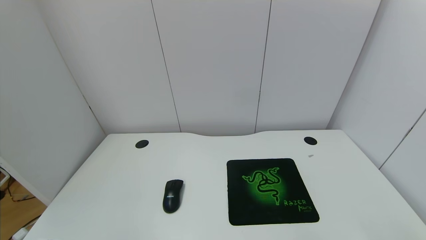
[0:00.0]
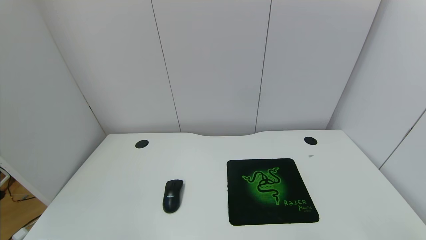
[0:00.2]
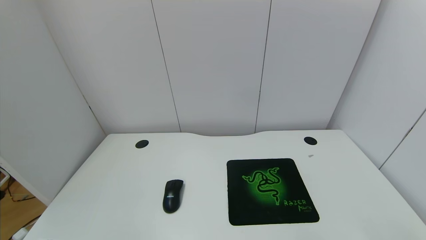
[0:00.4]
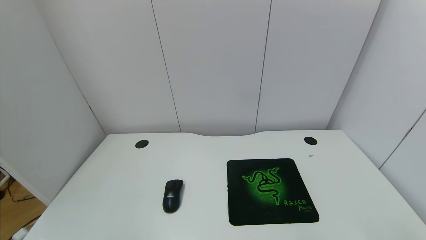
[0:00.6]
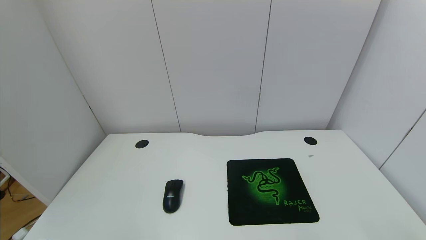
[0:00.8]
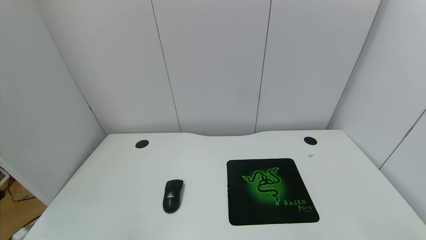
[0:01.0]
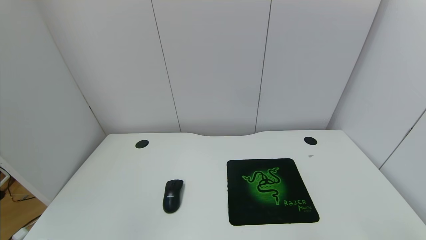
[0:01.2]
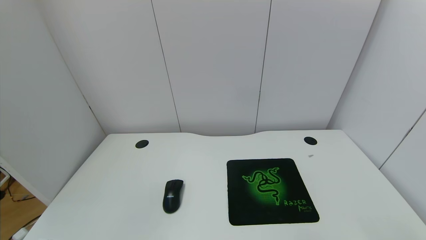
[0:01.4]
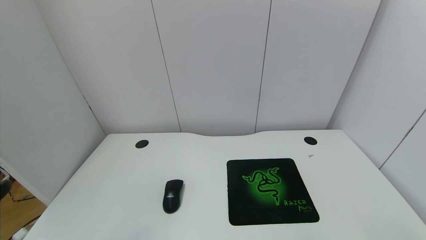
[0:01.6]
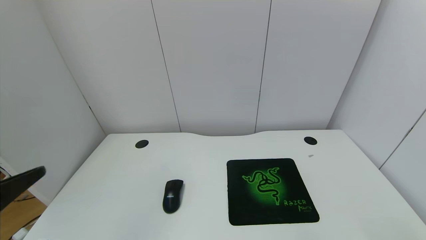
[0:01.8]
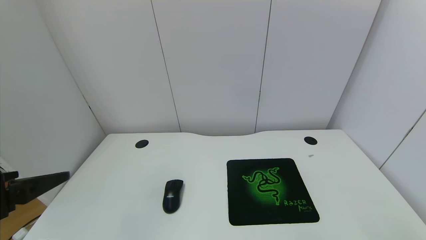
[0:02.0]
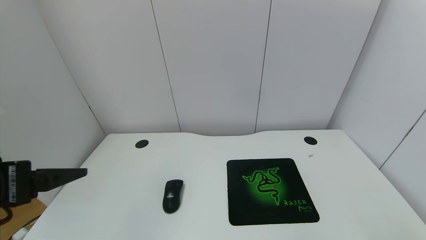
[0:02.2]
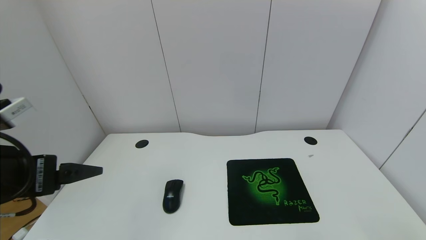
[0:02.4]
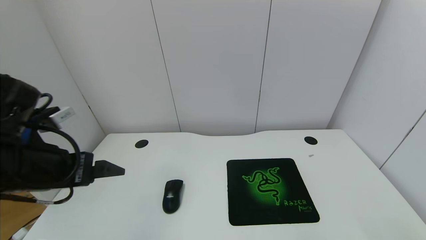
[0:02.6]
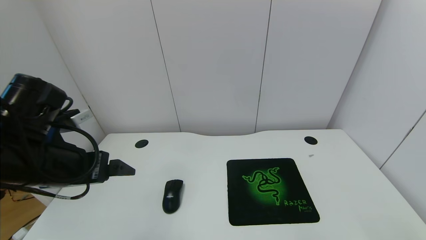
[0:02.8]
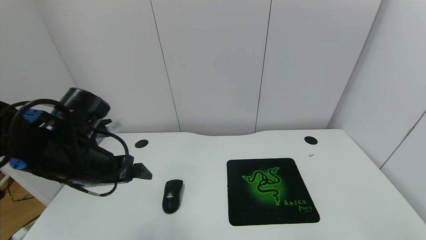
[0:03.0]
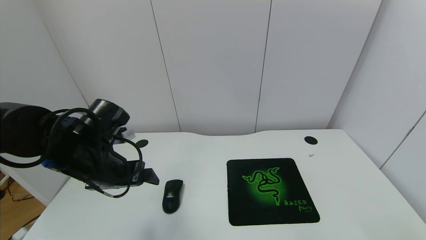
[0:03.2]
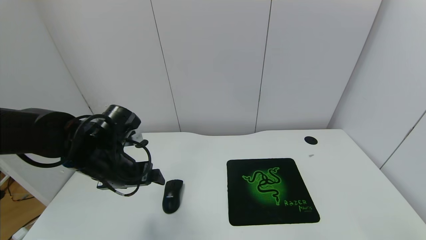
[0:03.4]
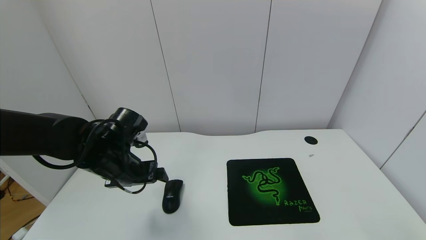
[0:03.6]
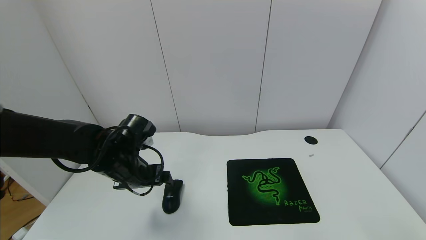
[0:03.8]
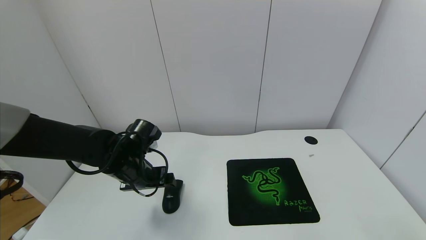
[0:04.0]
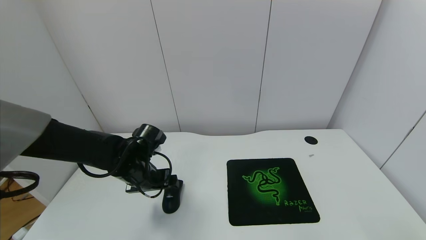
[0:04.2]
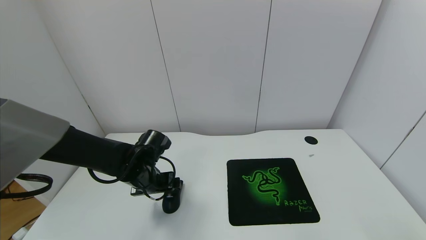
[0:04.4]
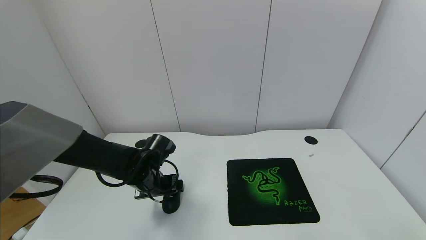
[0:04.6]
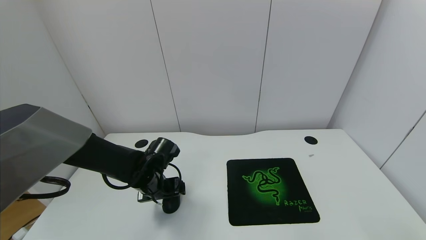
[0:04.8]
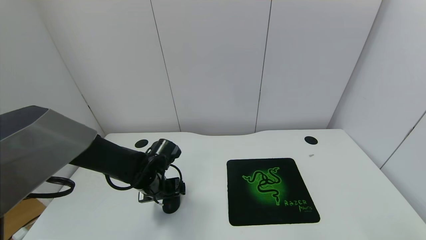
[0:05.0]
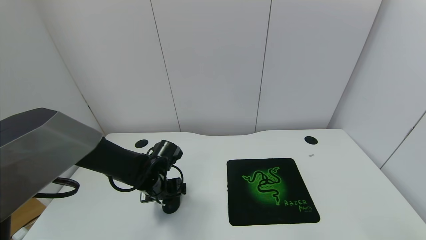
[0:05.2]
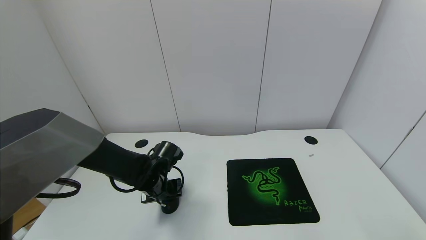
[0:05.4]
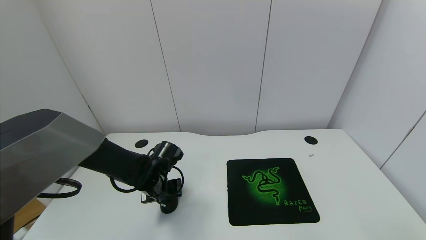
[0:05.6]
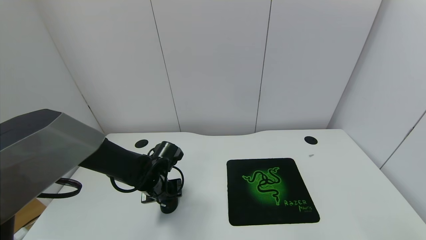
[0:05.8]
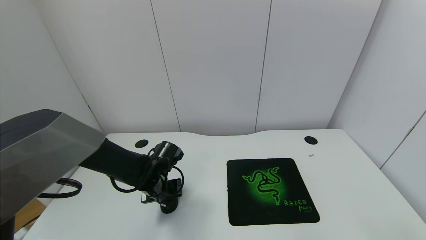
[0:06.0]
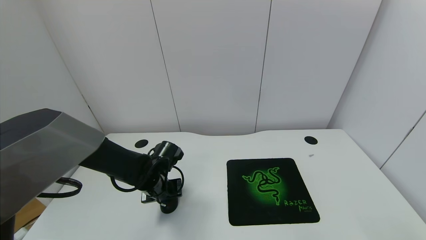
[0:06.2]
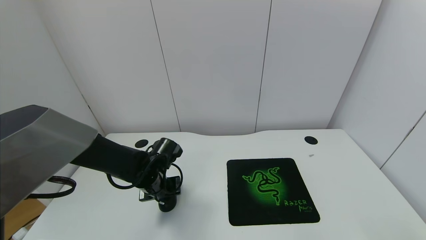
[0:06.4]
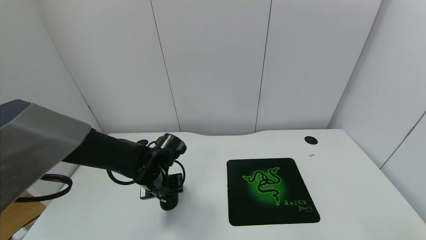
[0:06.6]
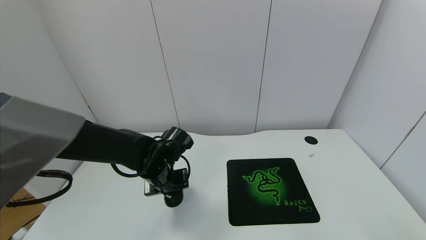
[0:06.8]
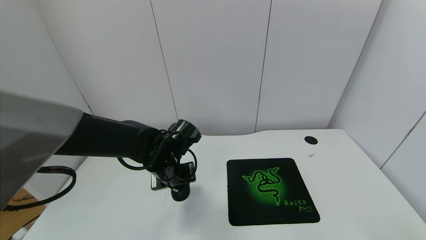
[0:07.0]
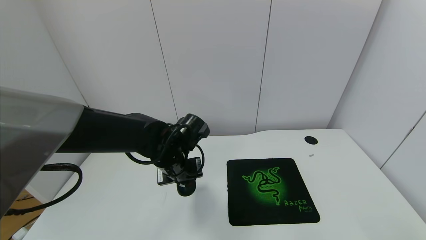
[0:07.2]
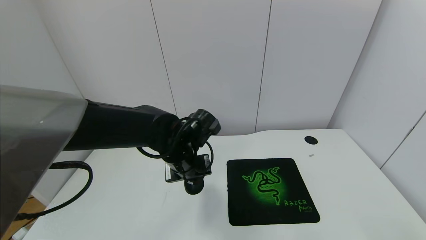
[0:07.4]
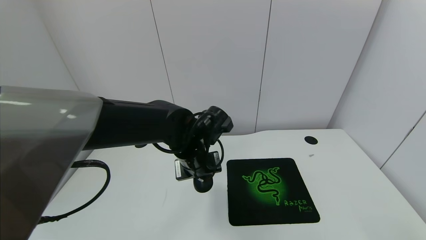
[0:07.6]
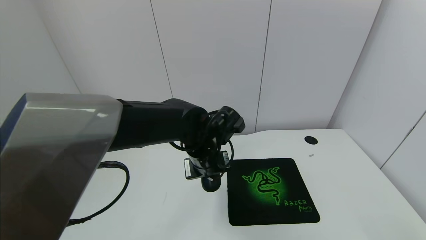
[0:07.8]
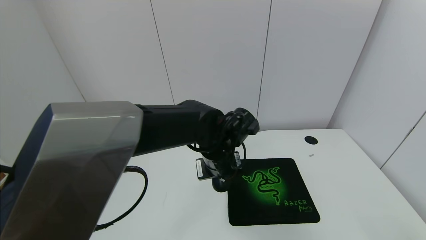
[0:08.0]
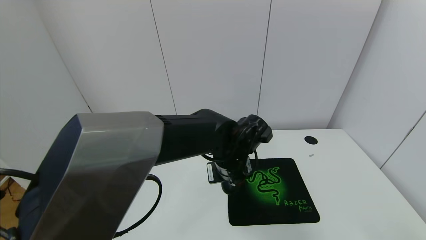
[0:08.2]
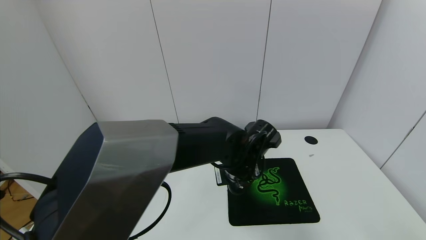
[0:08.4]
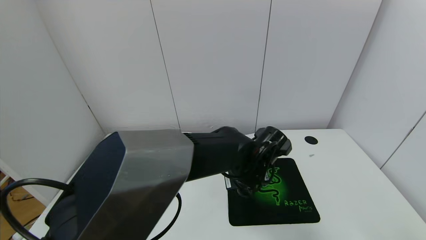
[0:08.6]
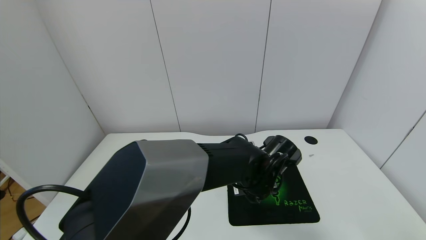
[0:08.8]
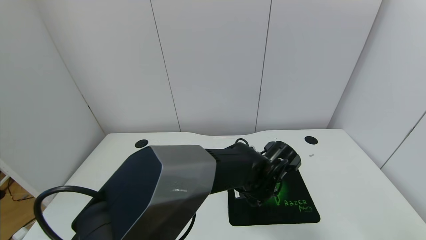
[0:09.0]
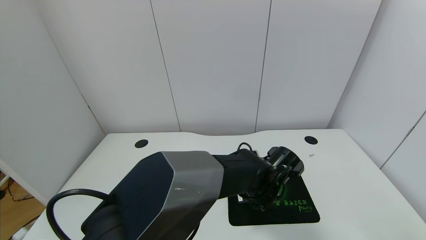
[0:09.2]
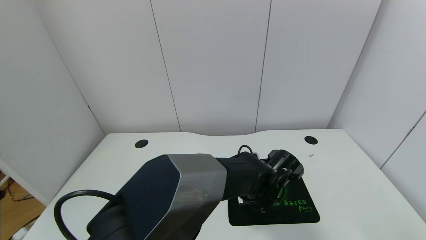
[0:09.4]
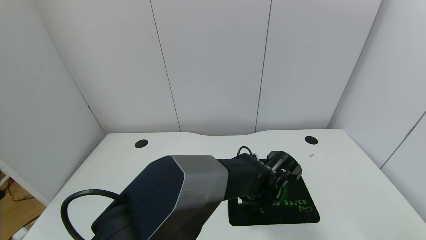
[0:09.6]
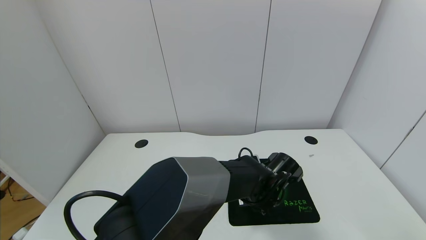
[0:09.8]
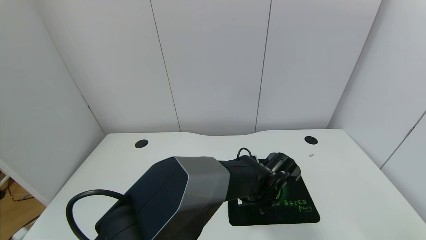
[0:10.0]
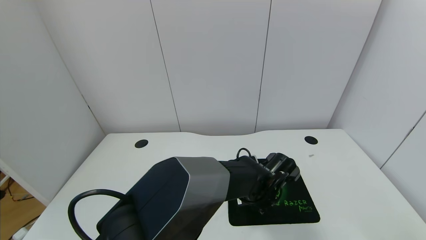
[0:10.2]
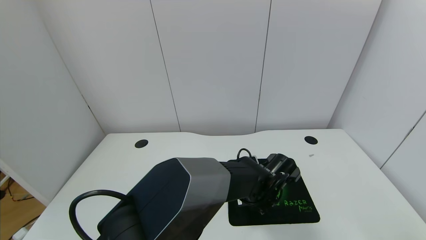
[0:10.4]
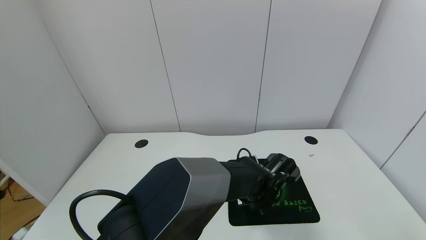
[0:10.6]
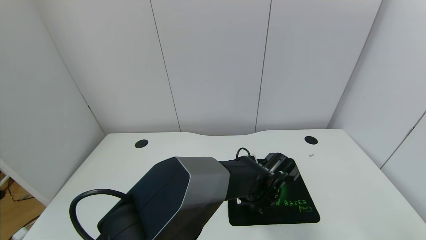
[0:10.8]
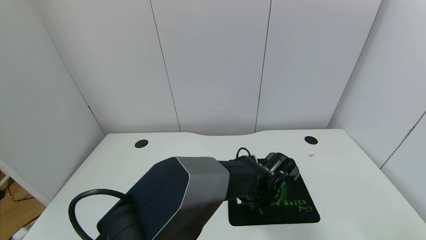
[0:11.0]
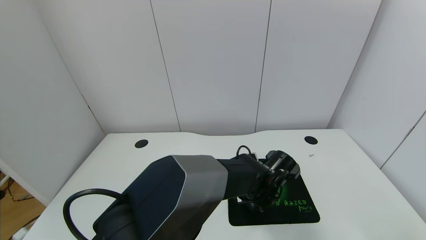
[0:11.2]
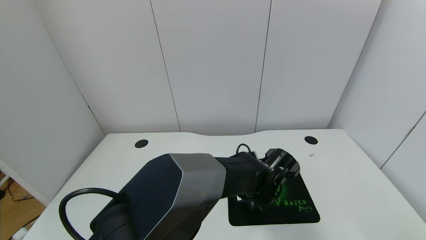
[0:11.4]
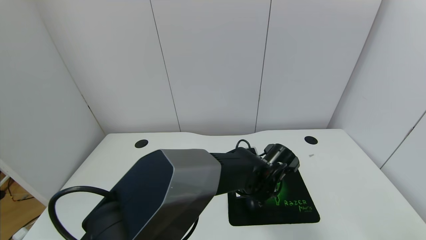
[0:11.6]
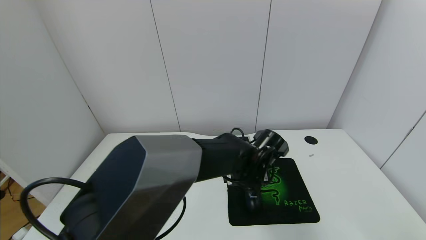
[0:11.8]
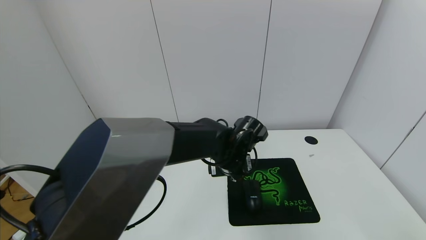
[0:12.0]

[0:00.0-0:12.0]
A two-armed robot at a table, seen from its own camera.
Task of the whole recording: use the gripper to move the mouse from one side of the table to the mouse pad on the opposite side.
Step, 0:00.0 to 0:06.0: Grasp the mouse with the left gripper.
Step, 0:06.2 to 0:12.0: Place the mouse on the mouse pad with the left gripper.
0:01.6 to 0:03.0: The left gripper shifts some 25 cm forward.
0:03.0 to 0:04.4: The left gripper travels downward and forward by approximately 15 cm.
0:04.4 to 0:06.0: The left gripper shifts by some 5 cm, and closes its fingers.
0:06.0 to 0:07.6: The left gripper moves to the right and upward, roughly 15 cm.
0:07.6 to 0:09.0: The left gripper heads to the right and downward, covering roughly 15 cm.
0:09.0 to 0:10.4: The grippers move only a little.
0:10.4 to 0:12.0: The left gripper heads upward and to the left, covering about 10 cm, and opens its fingers.

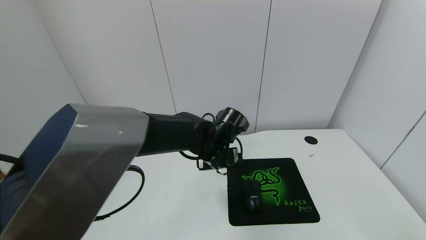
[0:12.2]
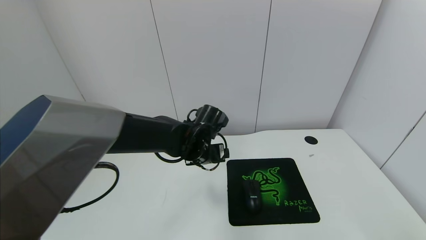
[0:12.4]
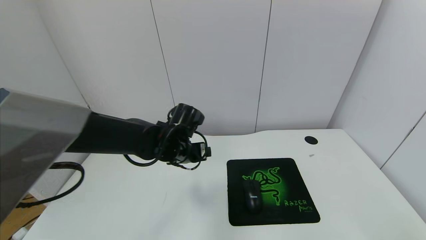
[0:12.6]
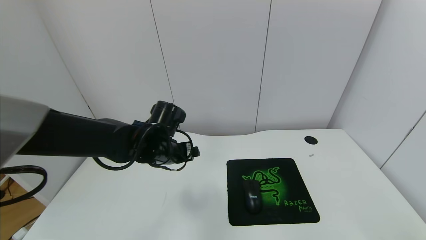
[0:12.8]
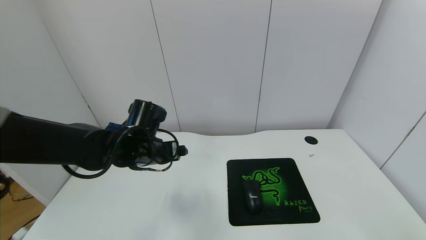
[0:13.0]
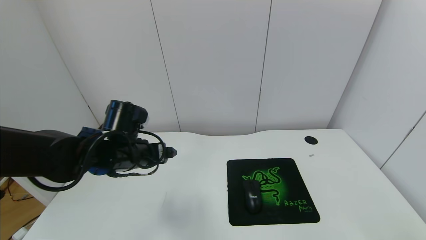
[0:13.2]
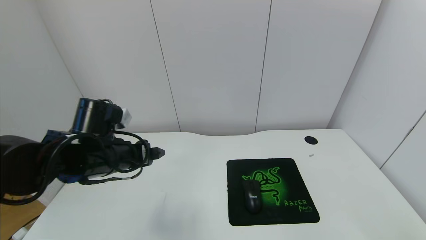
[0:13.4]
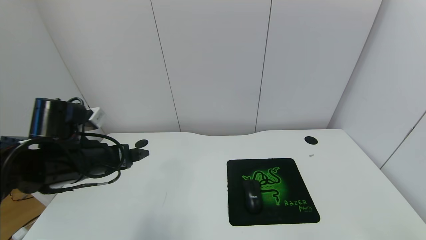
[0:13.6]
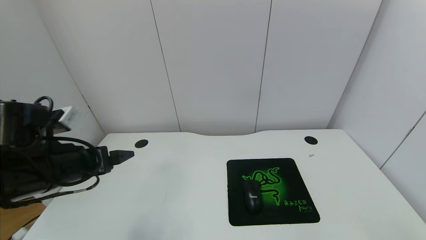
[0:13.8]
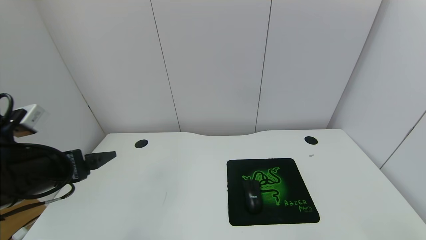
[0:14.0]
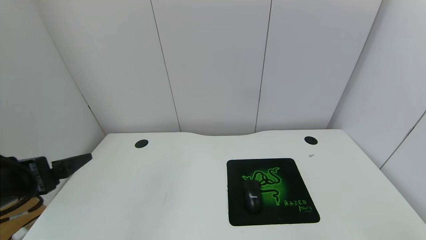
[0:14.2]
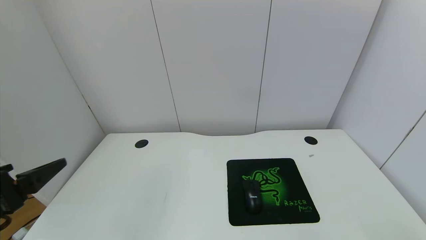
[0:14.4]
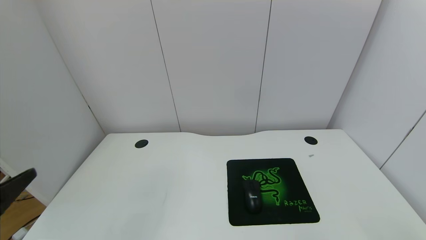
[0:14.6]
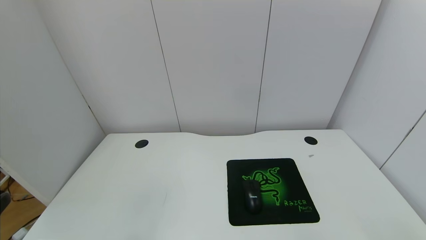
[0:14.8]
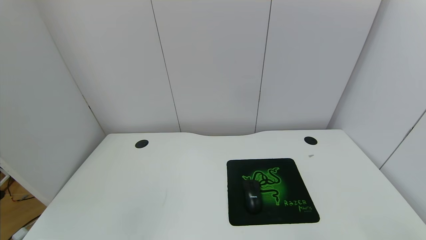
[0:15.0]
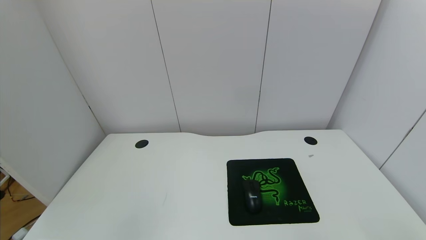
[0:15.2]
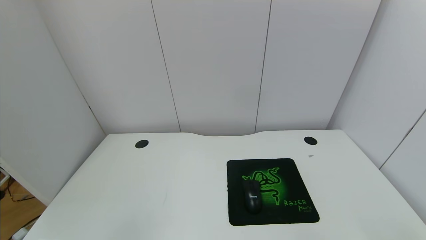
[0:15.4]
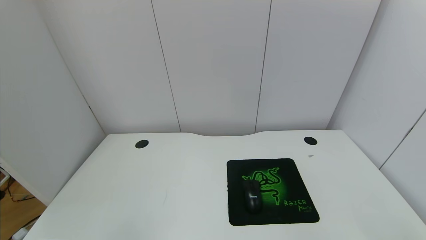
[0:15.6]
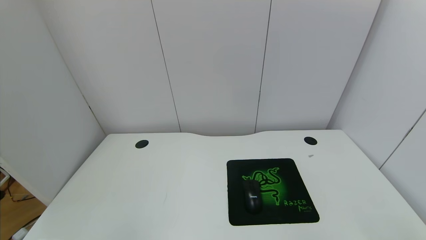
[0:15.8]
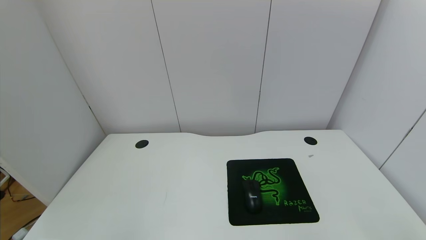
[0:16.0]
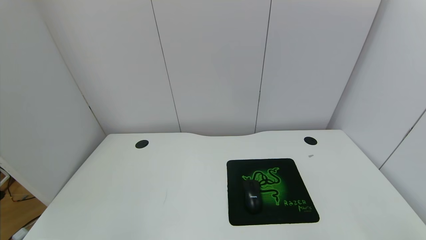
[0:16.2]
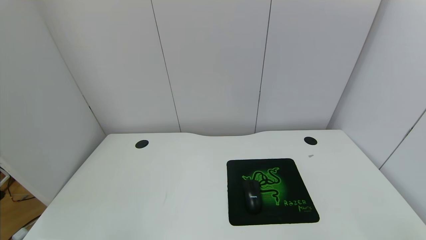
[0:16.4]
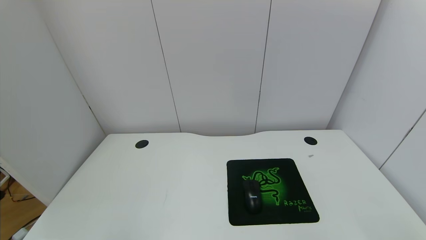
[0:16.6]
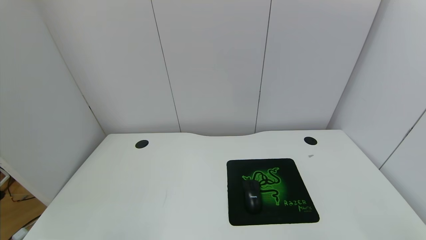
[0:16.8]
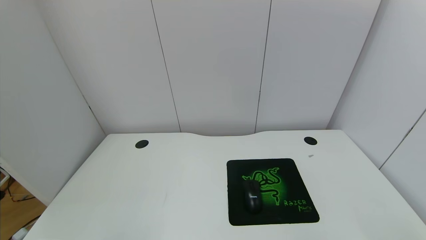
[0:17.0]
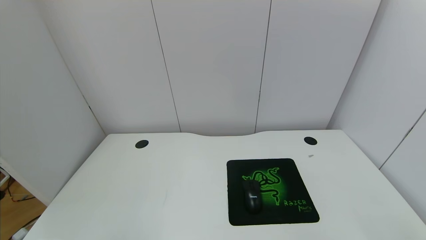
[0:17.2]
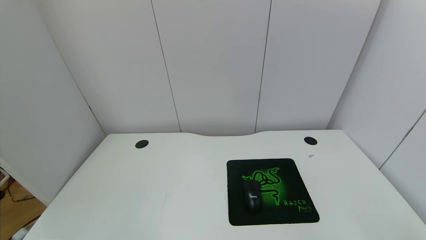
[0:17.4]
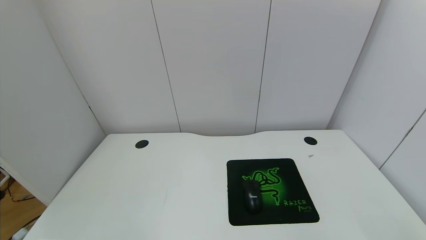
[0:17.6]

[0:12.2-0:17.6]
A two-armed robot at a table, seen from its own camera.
Task of the whole recording: use the gripper to move the mouse from one side of the table to the mouse pad on the opposite side.
0:12.2 to 0:13.6: The left gripper is displaced to the left and backward by roughly 25 cm.
0:13.6 to 0:15.0: The left gripper moves backward, approximately 25 cm.
